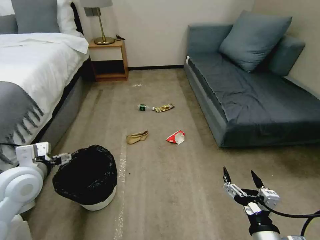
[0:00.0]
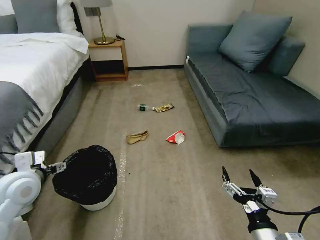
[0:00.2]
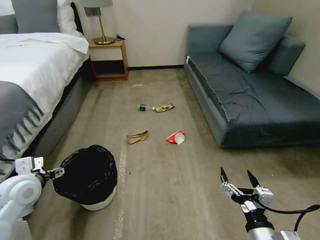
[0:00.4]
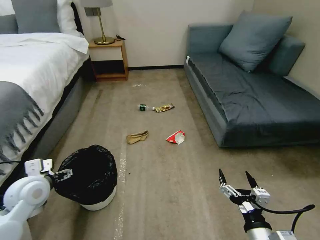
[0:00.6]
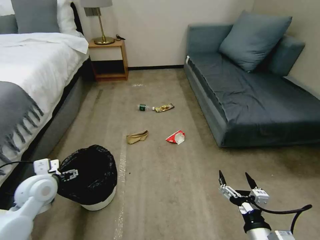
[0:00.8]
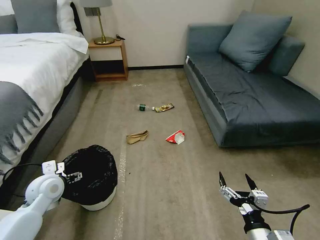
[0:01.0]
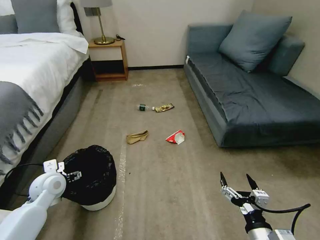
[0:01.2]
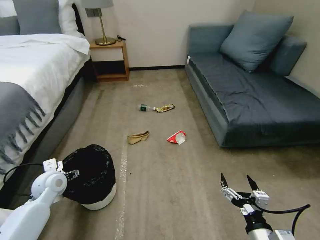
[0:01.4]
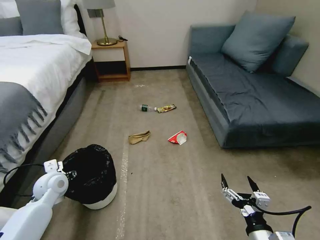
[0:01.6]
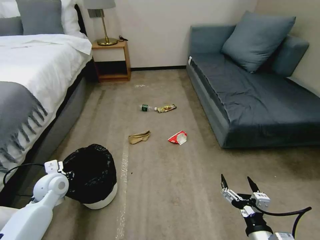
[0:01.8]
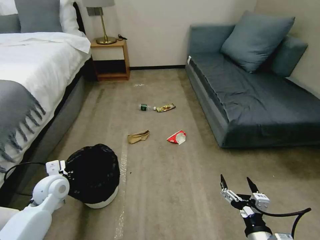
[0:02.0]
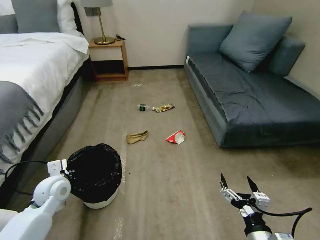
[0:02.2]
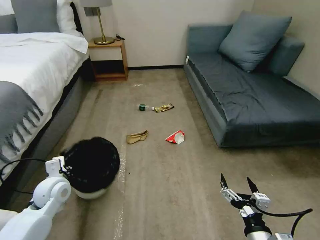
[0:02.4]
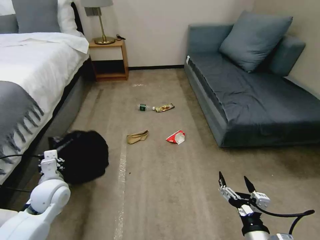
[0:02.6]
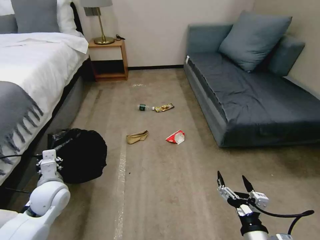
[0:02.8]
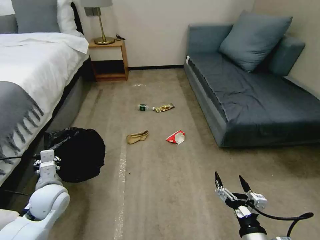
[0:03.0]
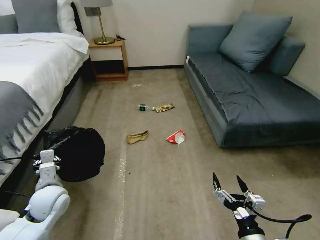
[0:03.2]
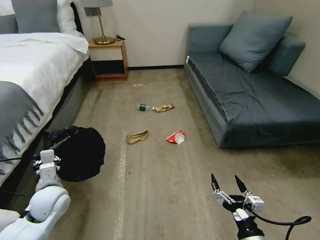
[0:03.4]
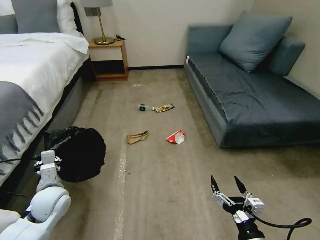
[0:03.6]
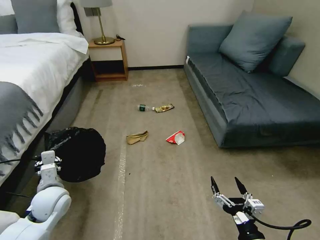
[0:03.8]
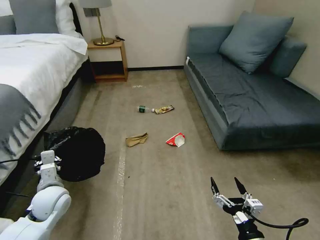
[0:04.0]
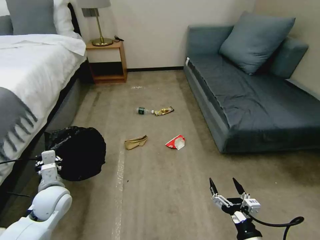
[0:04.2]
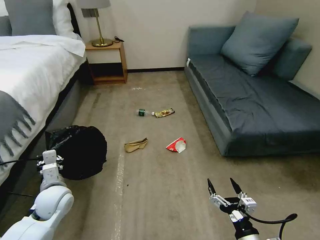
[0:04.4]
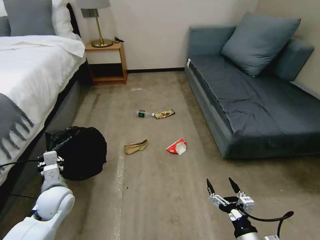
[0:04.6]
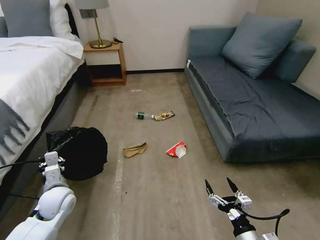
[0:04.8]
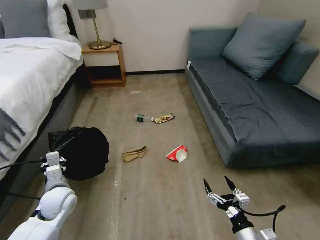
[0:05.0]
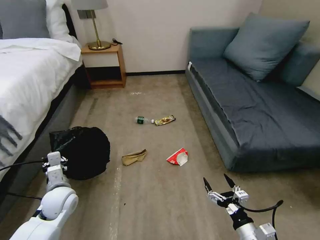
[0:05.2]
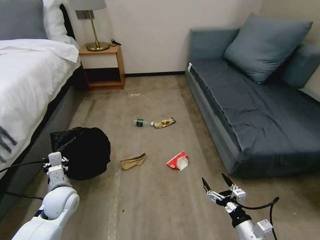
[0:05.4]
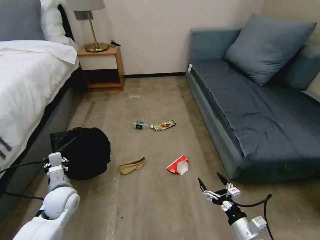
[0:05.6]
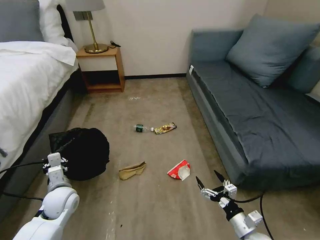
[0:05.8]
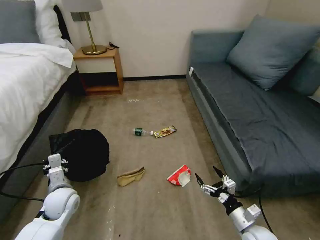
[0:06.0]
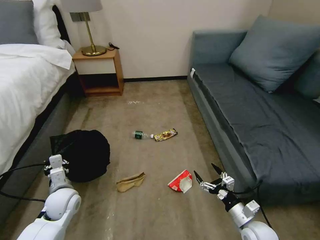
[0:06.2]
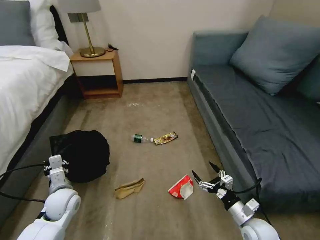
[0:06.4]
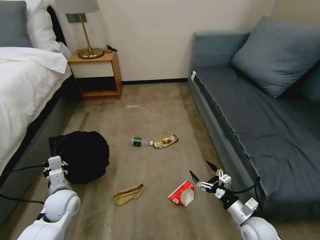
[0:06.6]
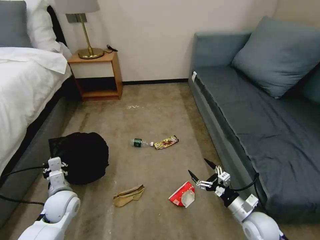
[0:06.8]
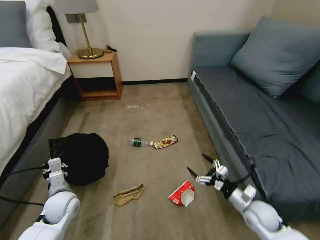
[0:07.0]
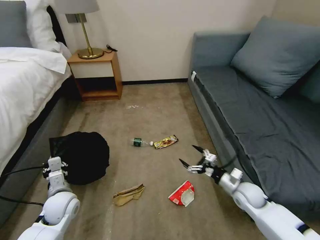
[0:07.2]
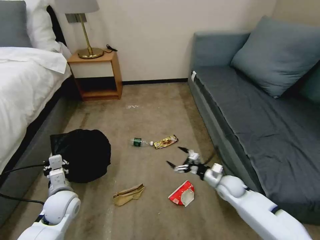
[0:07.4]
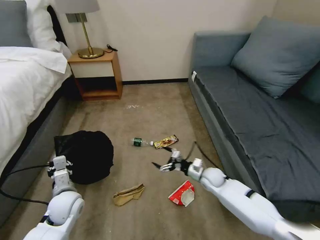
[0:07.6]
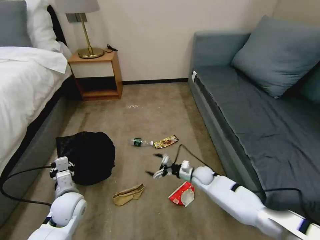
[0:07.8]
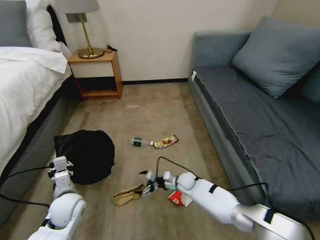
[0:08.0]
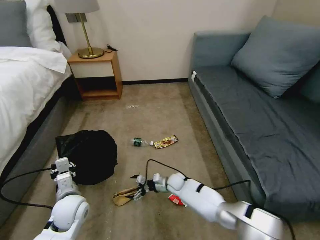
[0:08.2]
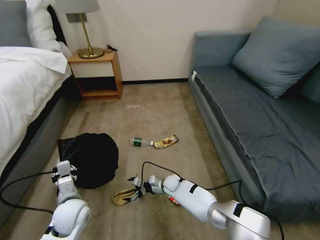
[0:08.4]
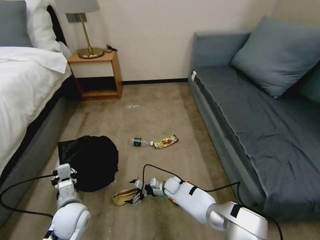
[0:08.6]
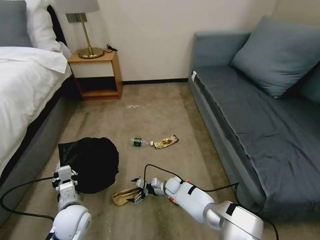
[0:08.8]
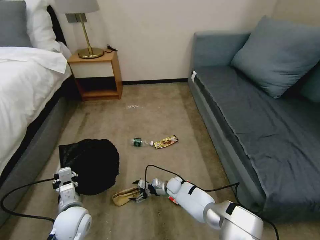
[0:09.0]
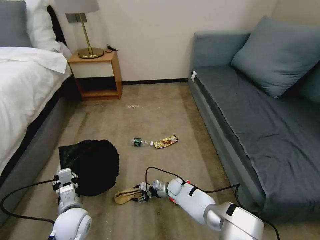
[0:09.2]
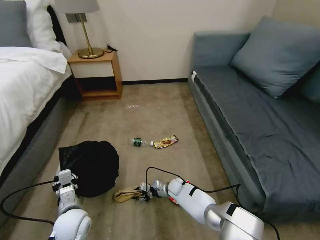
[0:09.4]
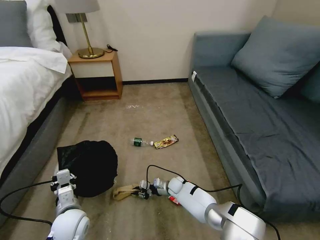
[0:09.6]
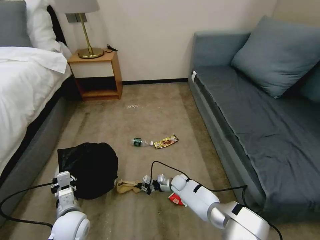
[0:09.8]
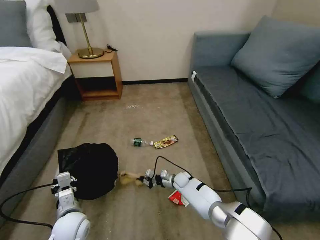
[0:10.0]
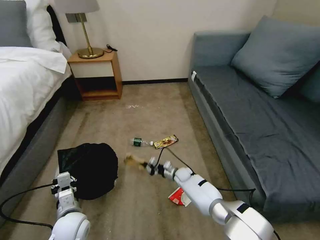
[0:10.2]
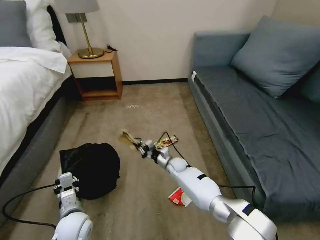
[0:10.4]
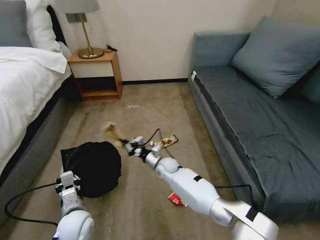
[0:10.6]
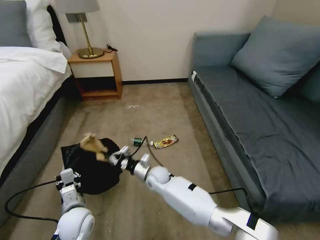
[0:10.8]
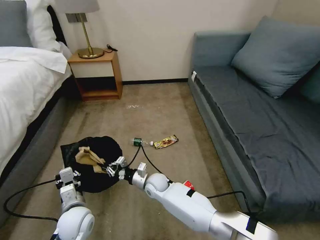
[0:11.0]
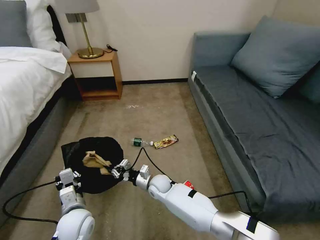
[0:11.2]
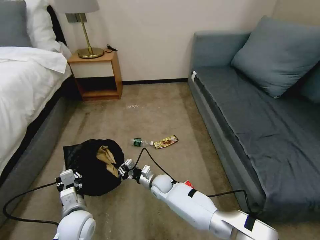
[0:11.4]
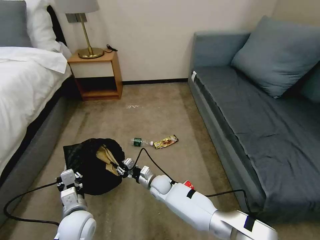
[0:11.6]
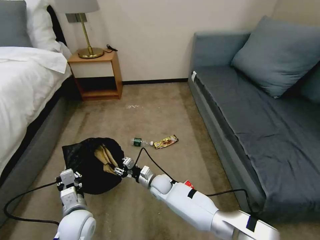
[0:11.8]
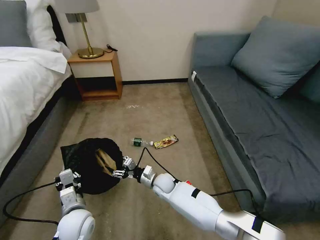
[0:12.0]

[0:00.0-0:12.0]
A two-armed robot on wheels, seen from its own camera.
Task of the whole recording: Pick up the trash bin, then pick up the garbage on the floor and place it into the trash bin.
0:00.0 to 0:01.6: The left gripper shifts some 15 cm downward.
0:01.6 to 0:03.0: The left gripper travels backward by about 5 cm, and closes.
0:03.0 to 0:04.4: The right gripper ends up about 5 cm from where it was.
0:04.4 to 0:06.0: The right gripper is displaced forward and downward by roughly 10 cm.
0:06.0 to 0:07.6: The right gripper shifts some 25 cm forward and to the left.
0:07.6 to 0:09.0: The left gripper ends up about 5 cm from where it was, while the right gripper moves to the left and downward, approximately 20 cm.
0:09.0 to 0:10.4: The right gripper shifts approximately 10 cm upward and forward, and closes up.
0:10.4 to 0:12.0: The right gripper is displaced to the left and backward by approximately 15 cm, and opens its fingers.

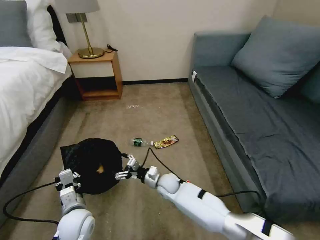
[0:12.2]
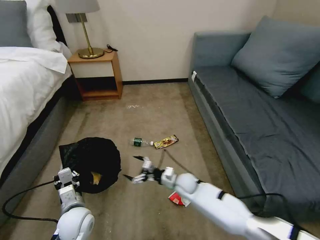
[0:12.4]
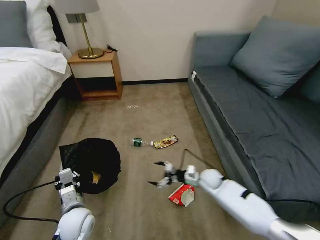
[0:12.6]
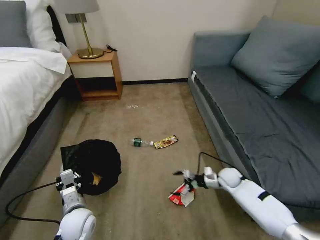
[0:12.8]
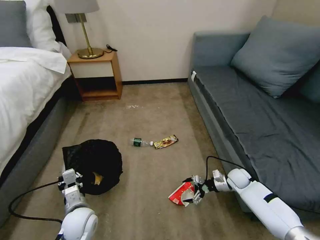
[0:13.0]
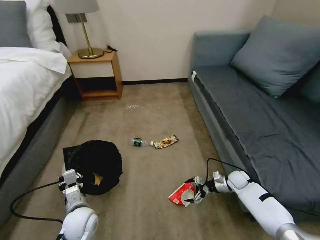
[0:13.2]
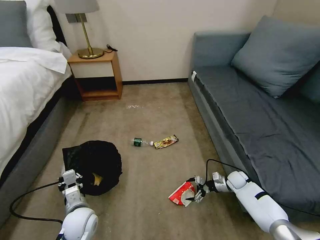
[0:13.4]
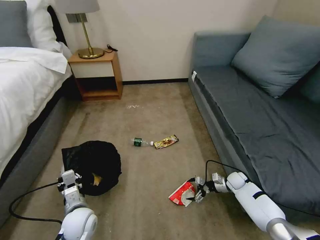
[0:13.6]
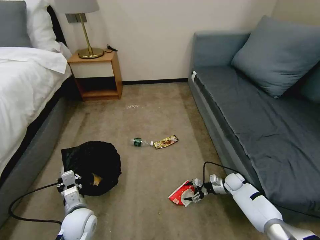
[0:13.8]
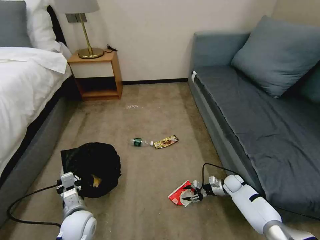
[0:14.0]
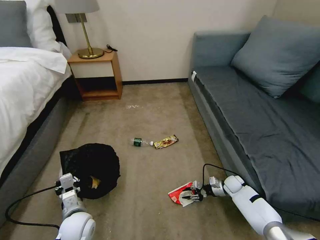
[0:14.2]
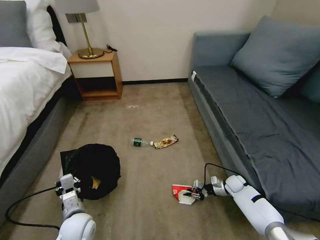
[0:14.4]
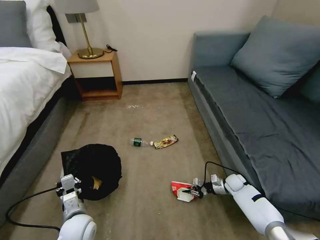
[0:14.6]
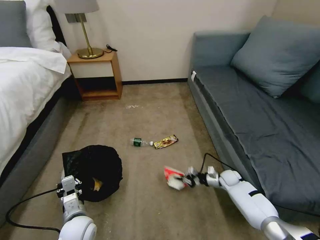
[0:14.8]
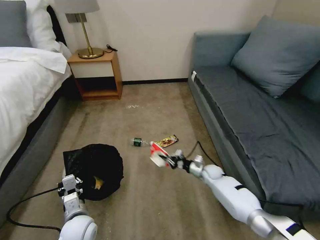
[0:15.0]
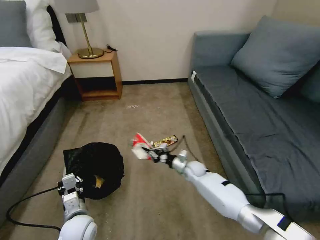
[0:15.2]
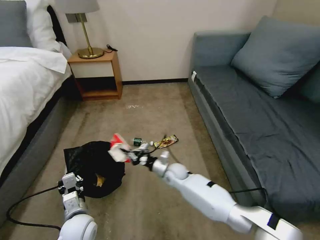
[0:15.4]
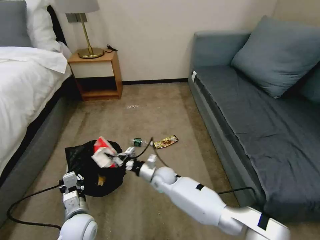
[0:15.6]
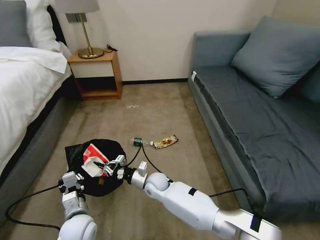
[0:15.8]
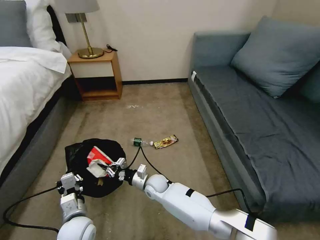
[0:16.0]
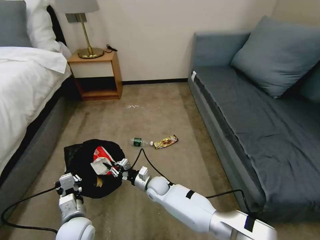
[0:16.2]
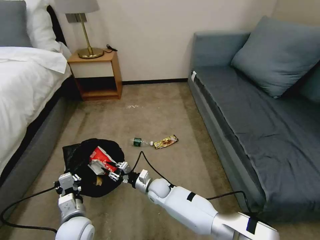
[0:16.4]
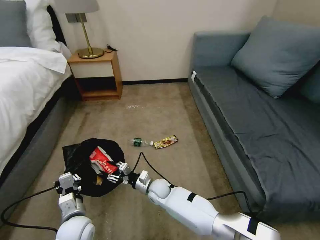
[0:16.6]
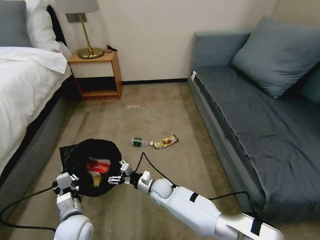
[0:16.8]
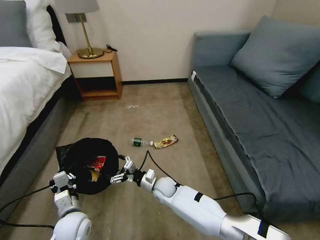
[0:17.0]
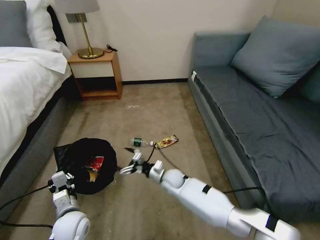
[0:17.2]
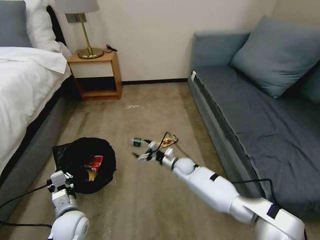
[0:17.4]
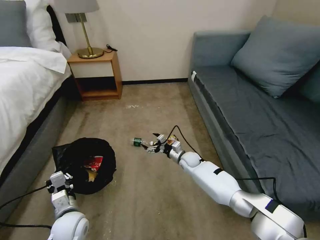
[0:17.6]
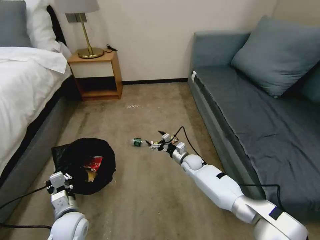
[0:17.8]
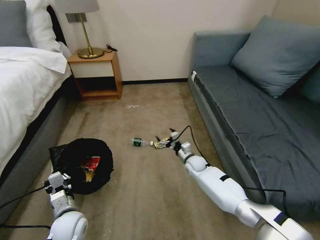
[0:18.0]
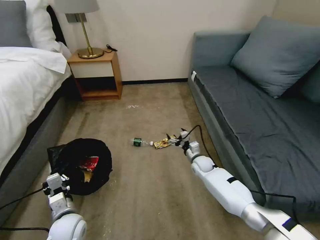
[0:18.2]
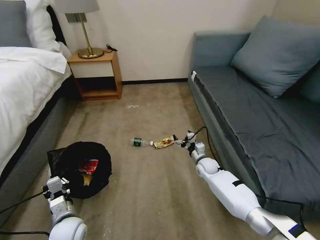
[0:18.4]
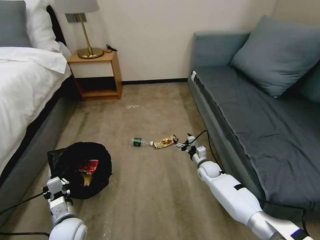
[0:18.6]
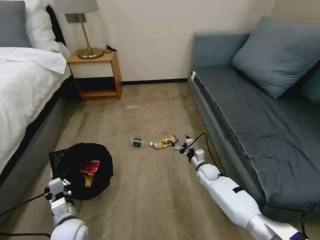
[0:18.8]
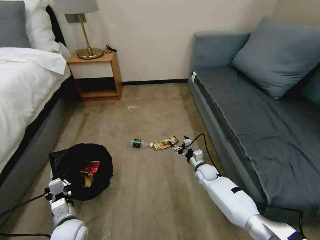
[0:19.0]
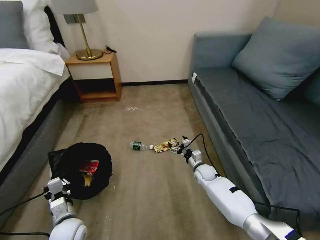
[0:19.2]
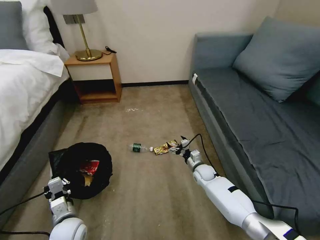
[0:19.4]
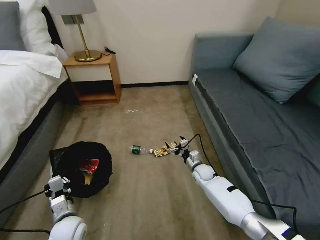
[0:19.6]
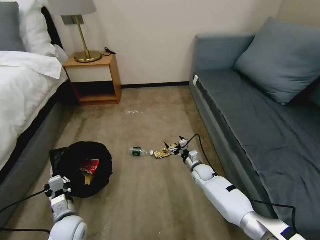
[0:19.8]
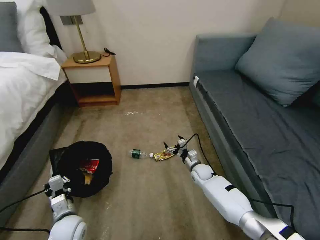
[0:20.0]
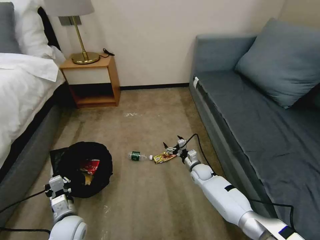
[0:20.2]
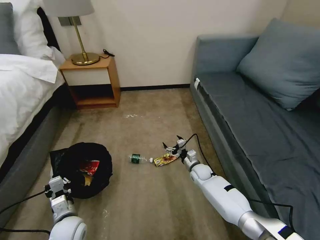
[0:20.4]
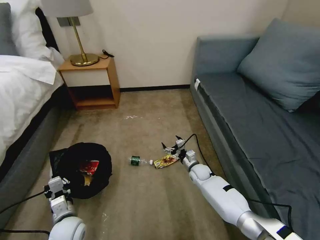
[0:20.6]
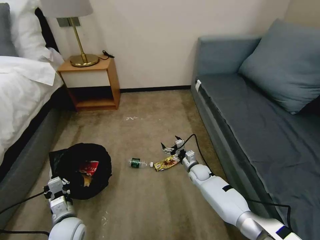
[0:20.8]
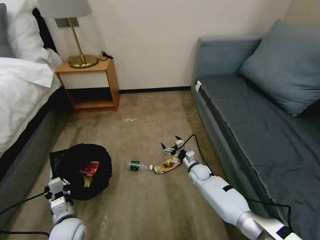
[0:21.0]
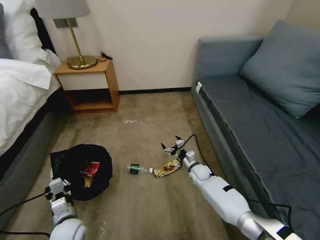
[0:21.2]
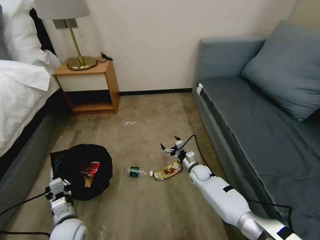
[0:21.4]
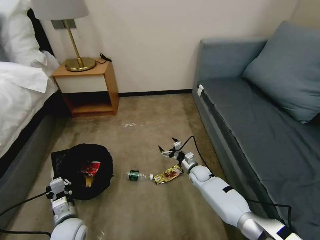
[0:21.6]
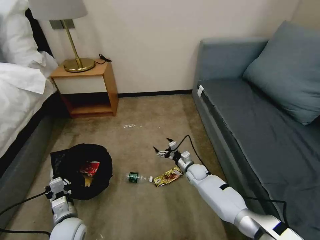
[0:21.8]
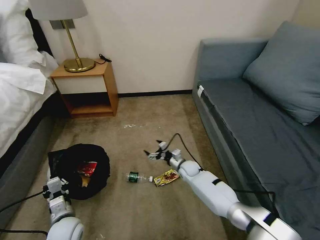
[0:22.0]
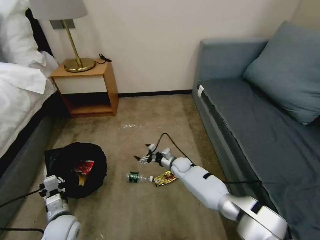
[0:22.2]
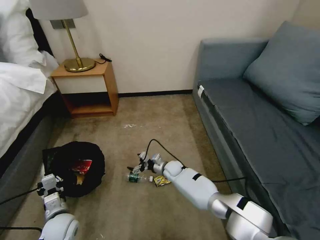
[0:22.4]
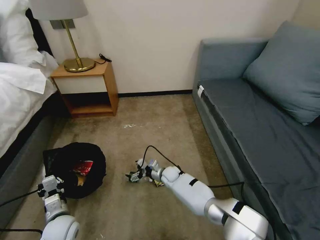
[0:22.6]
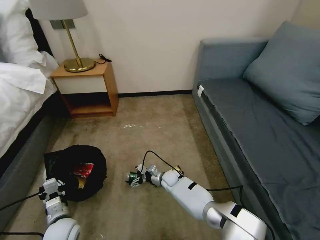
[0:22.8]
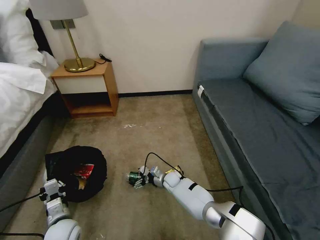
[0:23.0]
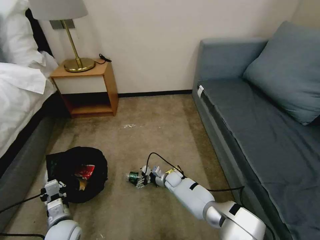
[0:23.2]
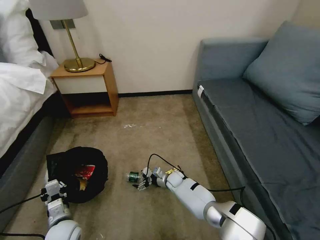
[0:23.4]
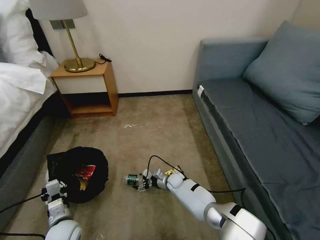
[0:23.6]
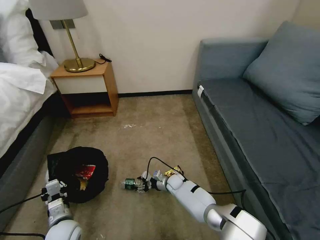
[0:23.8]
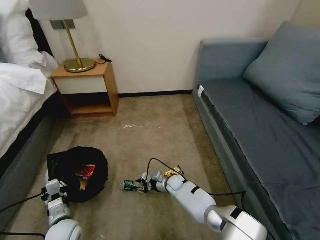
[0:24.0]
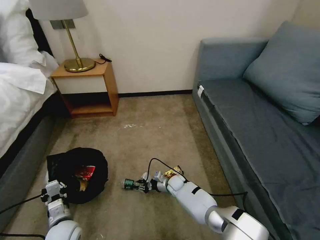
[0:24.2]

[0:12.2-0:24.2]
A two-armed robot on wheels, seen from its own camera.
Task of the whole recording: Pick up the trash bin, then pick up the garbage on the floor and place it into the trash bin.
0:12.2 to 0:13.8: The right gripper travels to the right by some 35 cm.
0:13.8 to 0:15.2: The right gripper goes roughly 20 cm to the left, and closes its fingers.
0:15.2 to 0:16.6: The right gripper shifts roughly 20 cm to the left and backward, and opens.
0:16.6 to 0:18.2: The right gripper moves to the right and forward, roughly 25 cm, and opens its fingers.
0:18.2 to 0:19.8: There are only small adjustments of the grippers.
0:21.2 to 0:22.6: The right gripper moves to the left, some 15 cm.
0:22.6 to 0:24.2: The right gripper ends up about 5 cm from where it was, and closes its fingers.
